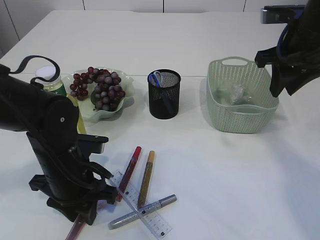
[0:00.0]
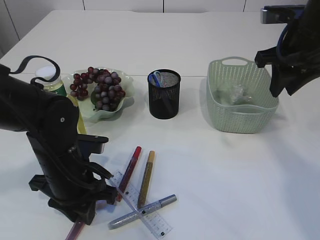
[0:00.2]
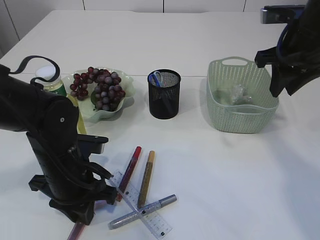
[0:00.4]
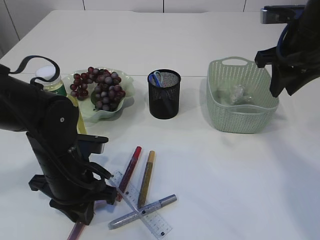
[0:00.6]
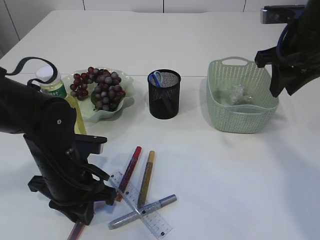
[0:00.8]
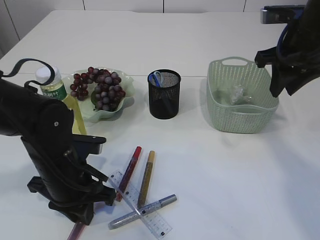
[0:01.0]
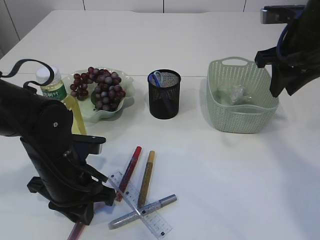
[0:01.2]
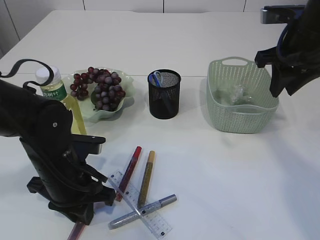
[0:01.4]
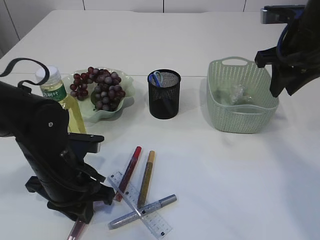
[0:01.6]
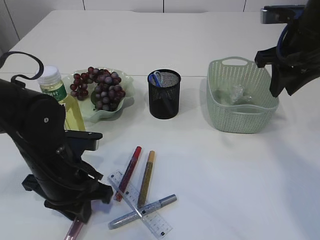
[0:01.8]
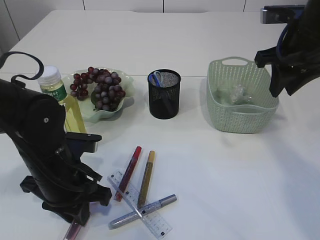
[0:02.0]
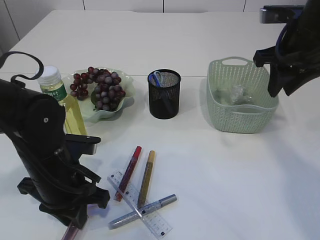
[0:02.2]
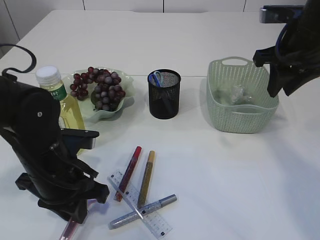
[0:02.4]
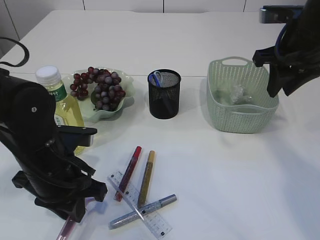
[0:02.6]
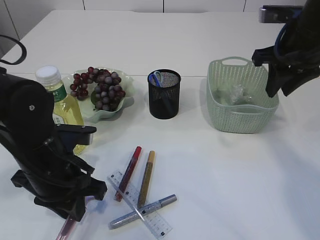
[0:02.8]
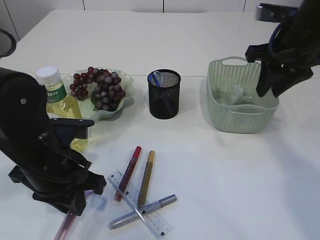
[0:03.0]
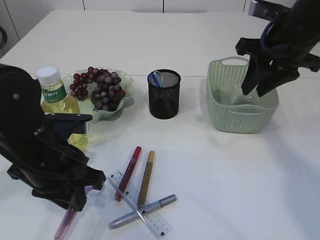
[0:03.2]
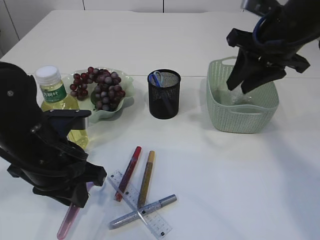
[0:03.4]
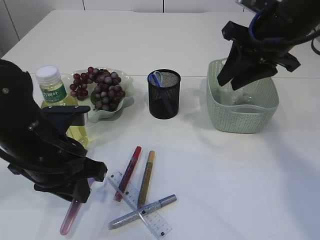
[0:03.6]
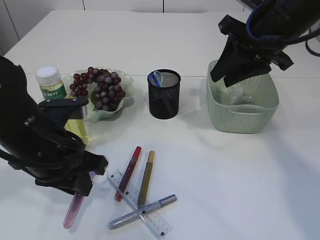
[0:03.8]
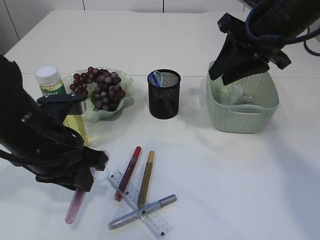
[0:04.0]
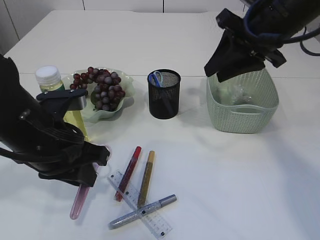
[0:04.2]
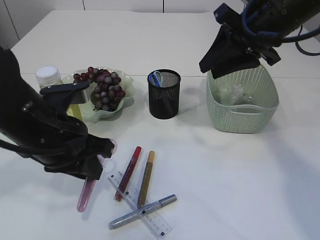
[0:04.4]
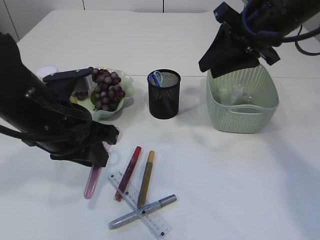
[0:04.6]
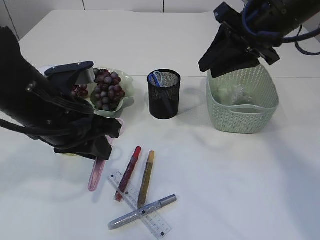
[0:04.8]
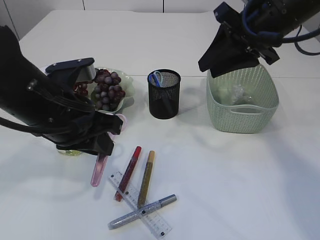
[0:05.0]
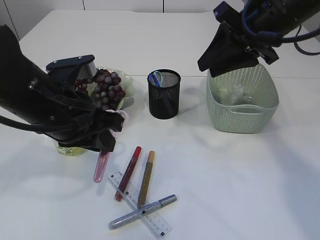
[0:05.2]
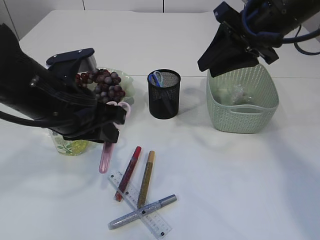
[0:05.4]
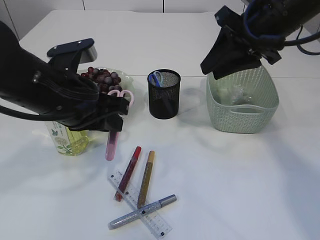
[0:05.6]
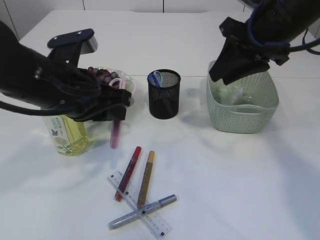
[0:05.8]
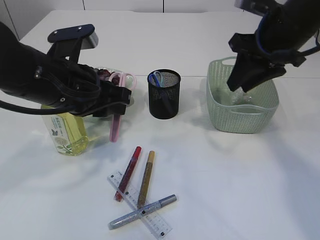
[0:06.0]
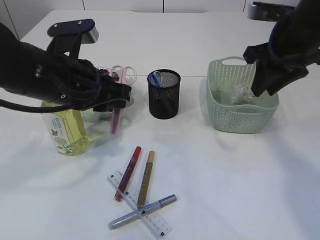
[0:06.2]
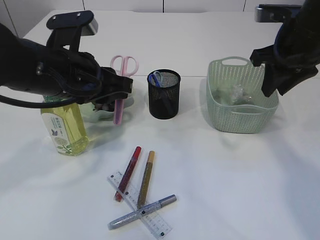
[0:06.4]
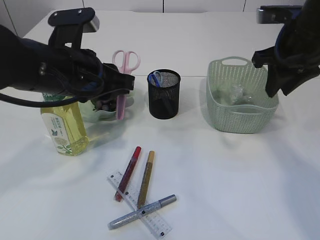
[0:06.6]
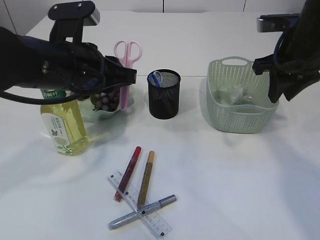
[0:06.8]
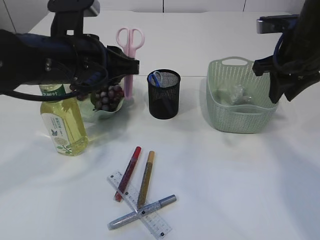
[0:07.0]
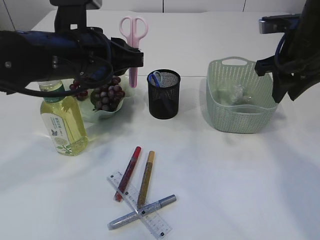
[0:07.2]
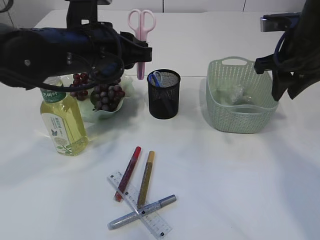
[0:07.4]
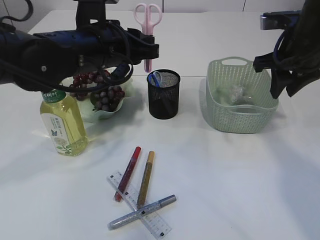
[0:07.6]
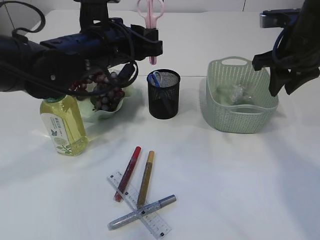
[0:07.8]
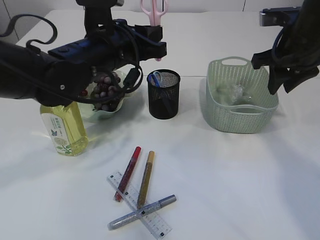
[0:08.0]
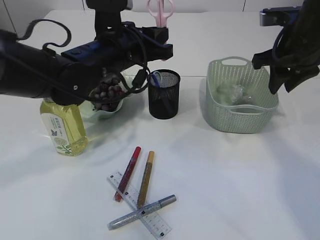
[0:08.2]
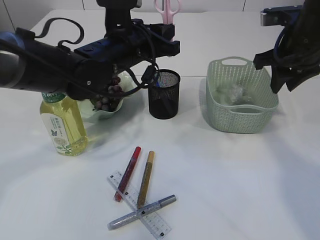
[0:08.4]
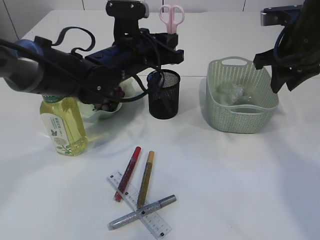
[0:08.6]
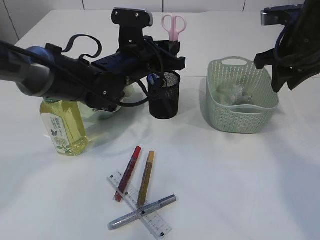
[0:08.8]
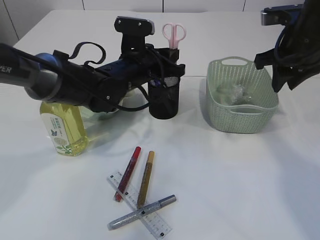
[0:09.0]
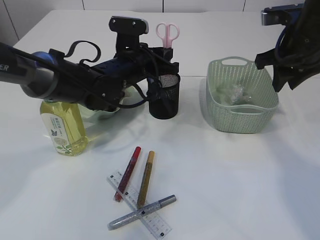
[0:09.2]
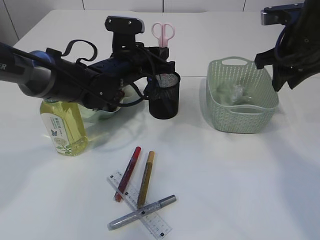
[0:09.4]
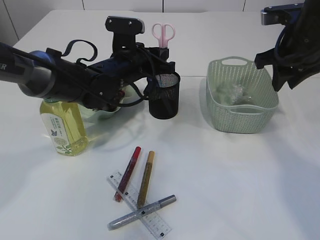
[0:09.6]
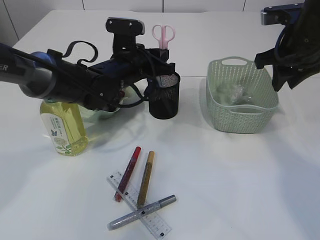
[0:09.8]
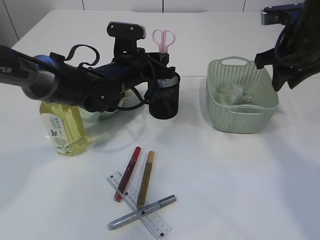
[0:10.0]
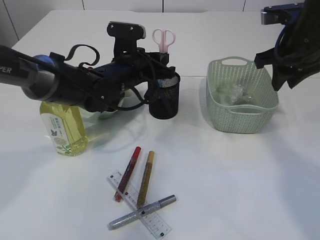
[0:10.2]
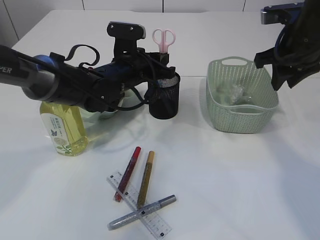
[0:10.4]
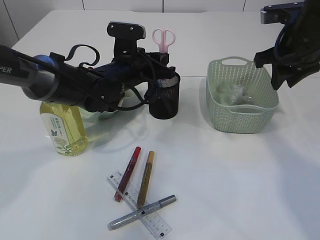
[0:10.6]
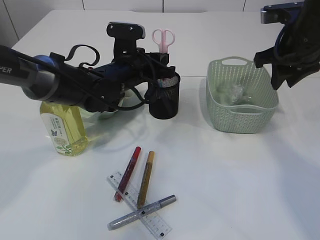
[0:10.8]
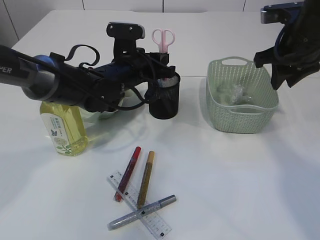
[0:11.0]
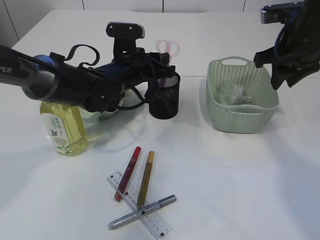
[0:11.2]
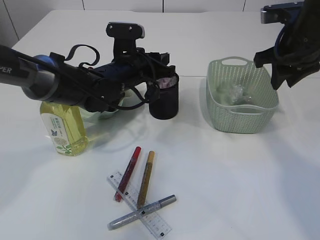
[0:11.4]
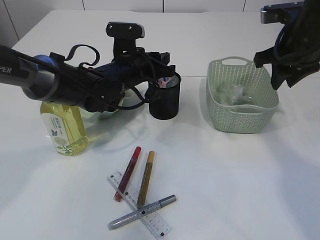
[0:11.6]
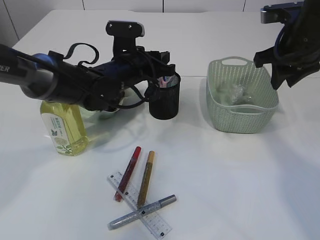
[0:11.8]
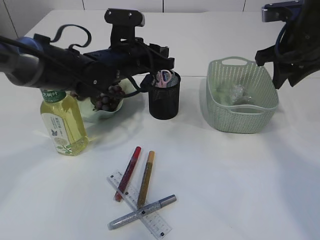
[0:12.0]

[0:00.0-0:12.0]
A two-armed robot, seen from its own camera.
Step, 0:00.0 to 0:04.8: pick up the pink scissors.
0:00.0 to 0:01.6: The two grippers keep their place.
0:01.6 to 0:03.0: The grippers move only a little.
0:03.0 to 0:04.4: The right gripper shifts by about 5 cm.
0:04.4 to 0:06.0: The left gripper moves approximately 5 cm.
0:06.0 to 0:07.6: The left gripper travels forward by about 5 cm; the right gripper ends up approximately 5 cm from where it was.
0:07.6 to 0:09.0: The left gripper goes some 10 cm downward and forward.
0:09.0 to 0:12.0: The grippers make only small movements.

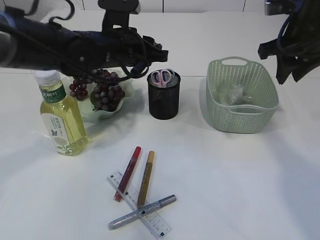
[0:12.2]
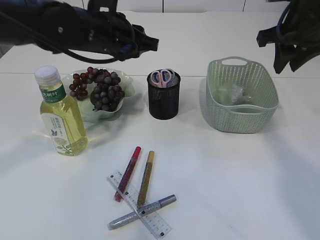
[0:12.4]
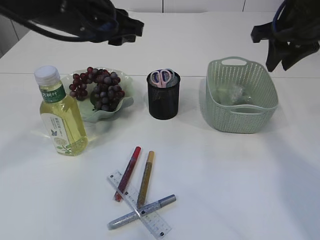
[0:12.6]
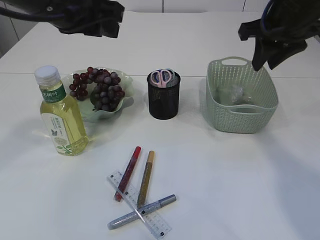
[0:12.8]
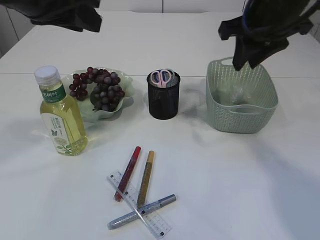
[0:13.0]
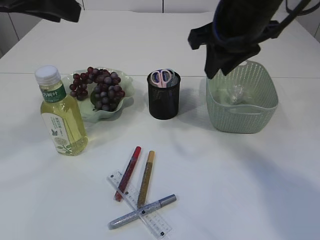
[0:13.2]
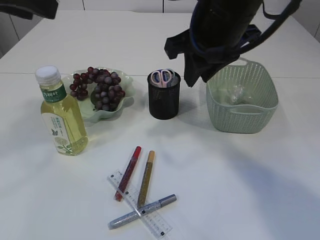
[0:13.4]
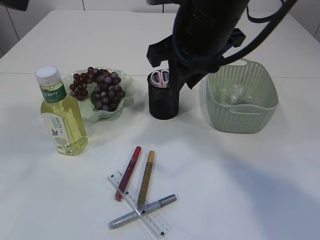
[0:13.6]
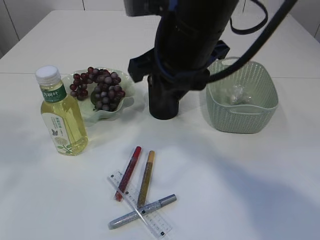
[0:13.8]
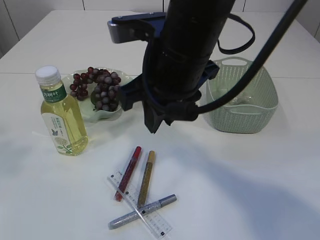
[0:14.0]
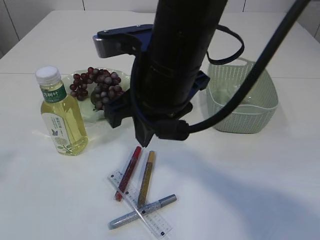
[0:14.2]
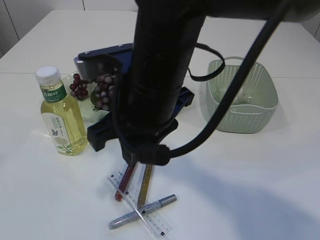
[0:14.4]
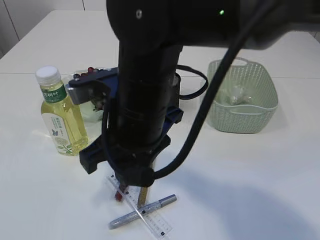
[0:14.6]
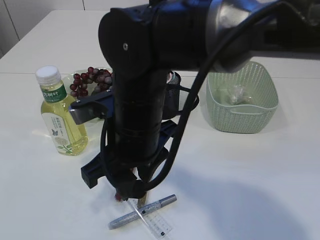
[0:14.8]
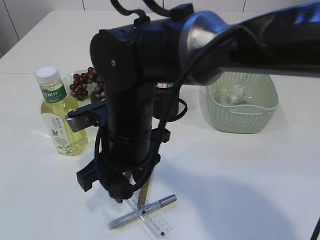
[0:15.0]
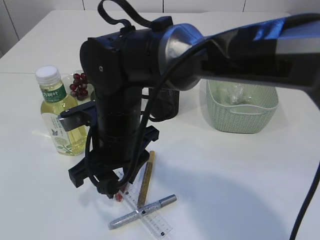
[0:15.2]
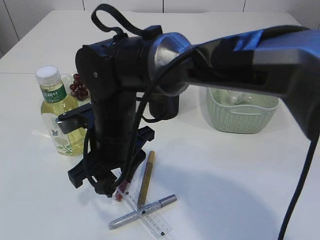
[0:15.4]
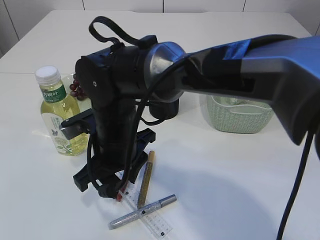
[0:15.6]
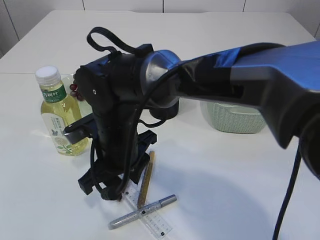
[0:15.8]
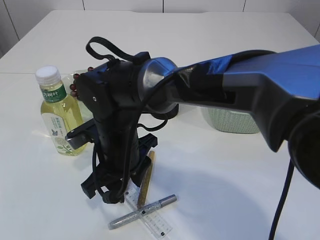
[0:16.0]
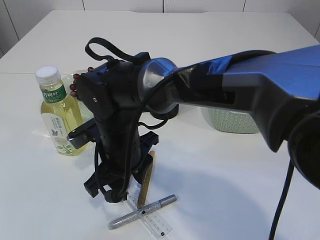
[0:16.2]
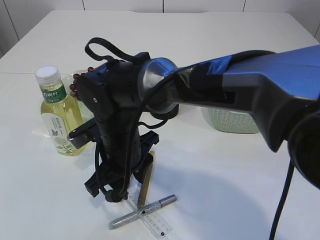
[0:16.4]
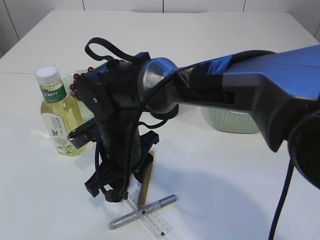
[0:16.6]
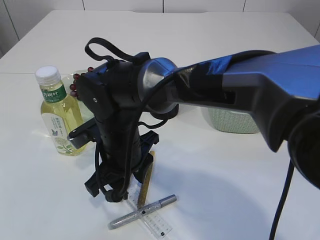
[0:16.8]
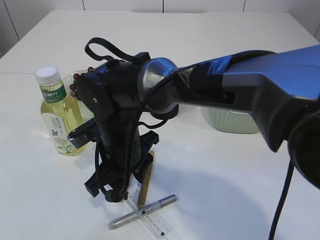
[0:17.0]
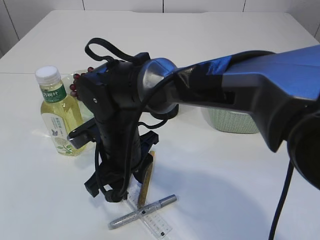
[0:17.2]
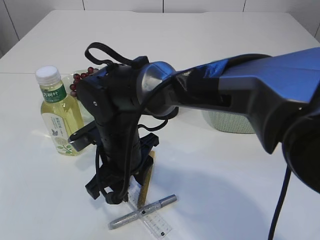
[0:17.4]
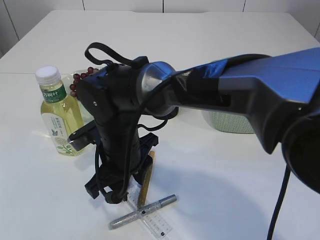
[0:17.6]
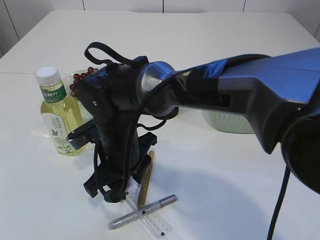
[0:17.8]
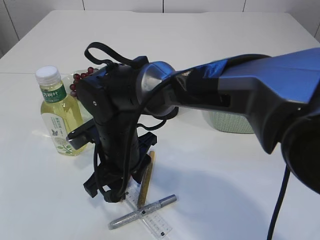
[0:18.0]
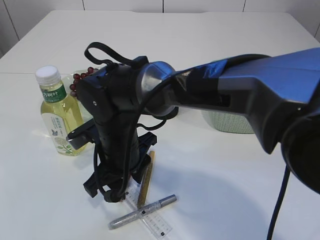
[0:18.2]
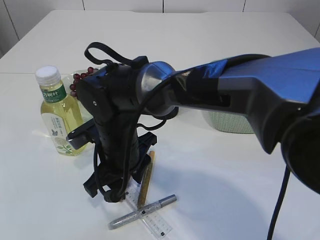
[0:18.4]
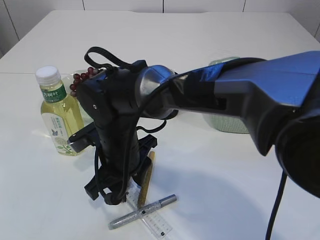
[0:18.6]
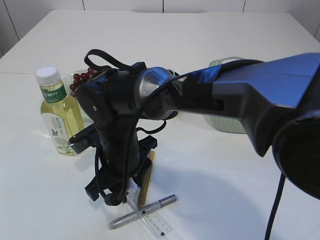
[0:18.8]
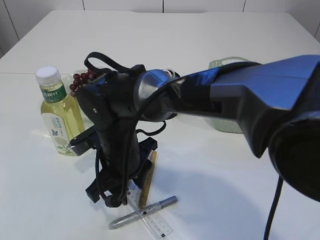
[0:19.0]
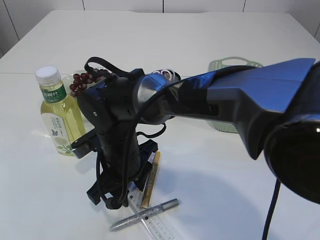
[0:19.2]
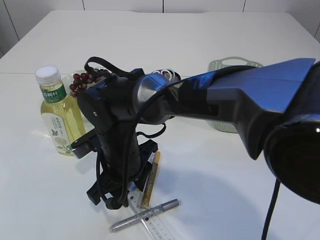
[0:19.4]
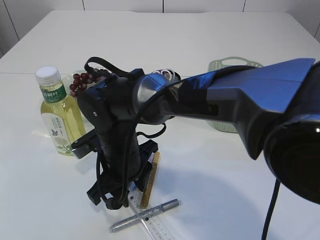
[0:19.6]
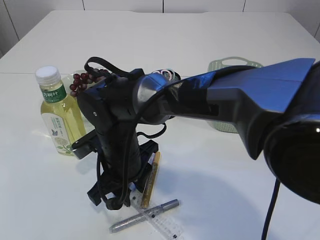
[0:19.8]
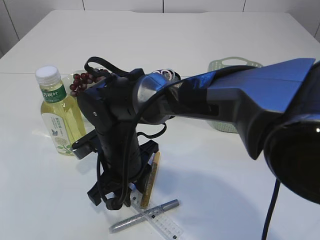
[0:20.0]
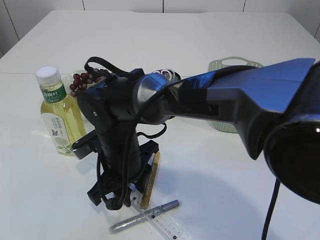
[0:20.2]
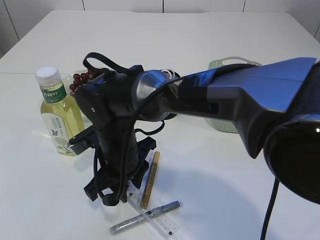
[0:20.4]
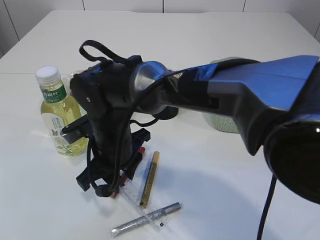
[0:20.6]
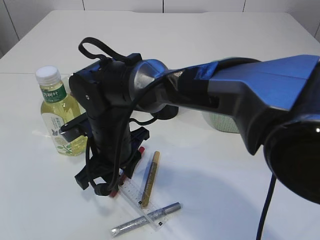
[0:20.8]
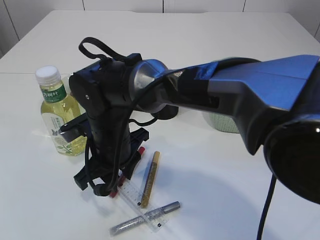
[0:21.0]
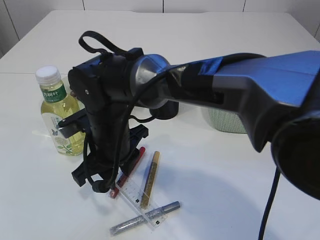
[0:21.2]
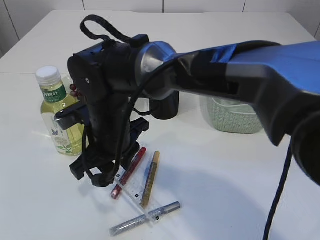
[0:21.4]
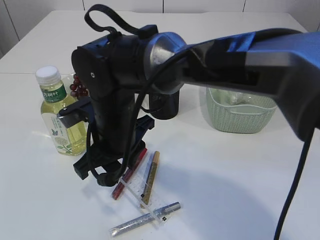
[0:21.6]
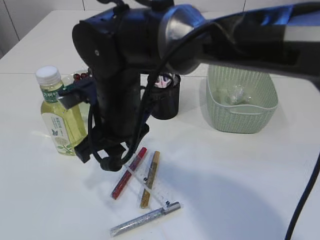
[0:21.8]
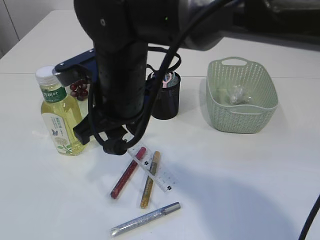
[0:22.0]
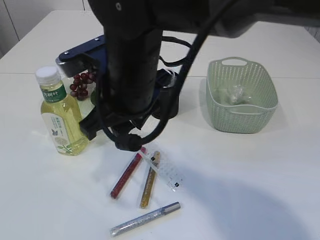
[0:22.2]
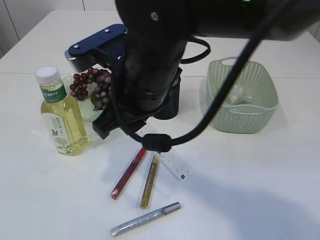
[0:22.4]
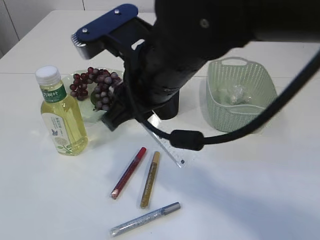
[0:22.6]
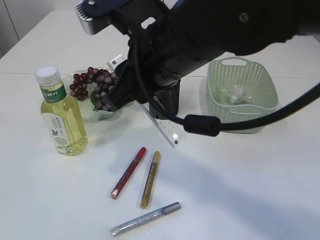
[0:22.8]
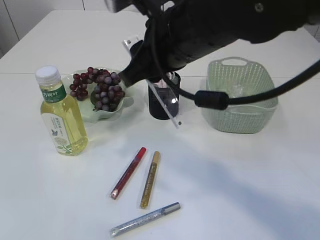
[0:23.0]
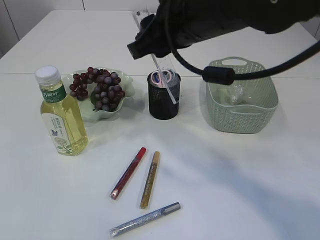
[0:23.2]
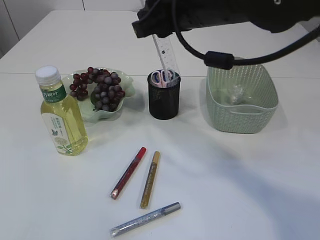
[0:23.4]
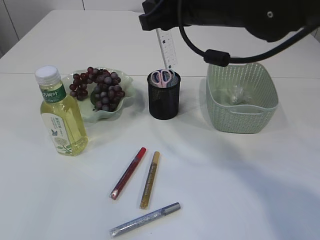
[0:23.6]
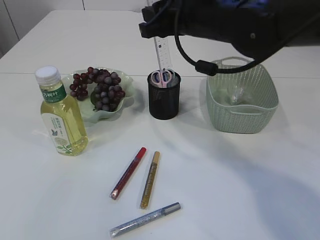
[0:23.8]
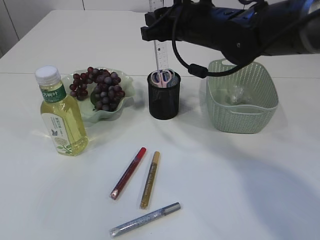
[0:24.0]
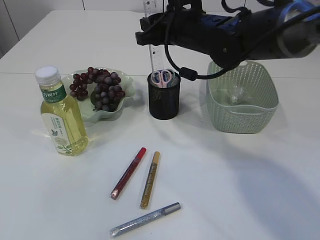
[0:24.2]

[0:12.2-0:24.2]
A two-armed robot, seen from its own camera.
Step, 0:12.4 to 0:22.0: pick up the ruler.
0:12.2 to 0:13.8: The right gripper travels to the left and backward by about 20 cm. Meanwhile the left gripper travels backward, upward and to the left by approximately 35 cm.
0:13.8 to 0:15.2: The left gripper goes approximately 10 cm backward and to the left. The right gripper travels downward and to the left by roughly 15 cm.
0:15.2 to 0:16.6: The right gripper moves roughly 5 cm.
0:16.6 to 0:18.2: The two grippers keep their place.
0:18.2 to 0:19.8: There are only small adjustments of the grippers.
0:21.2 to 0:22.6: The right gripper shifts roughly 15 cm upward and to the right.
0:22.6 to 0:24.2: The right gripper shifts approximately 15 cm forward.
